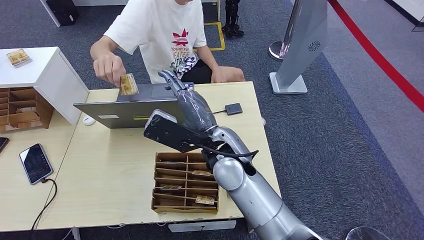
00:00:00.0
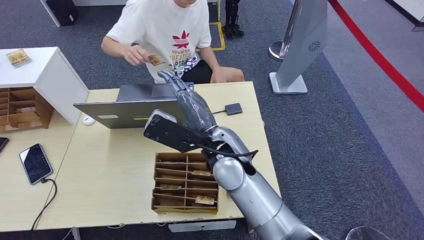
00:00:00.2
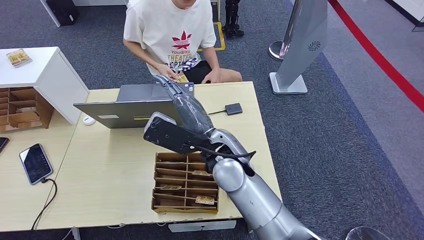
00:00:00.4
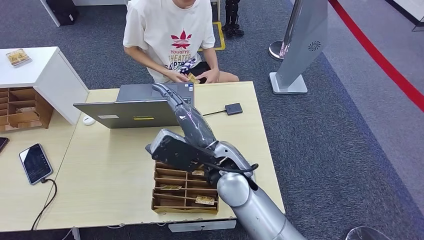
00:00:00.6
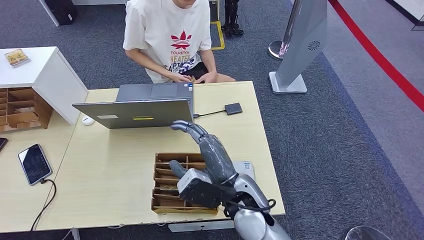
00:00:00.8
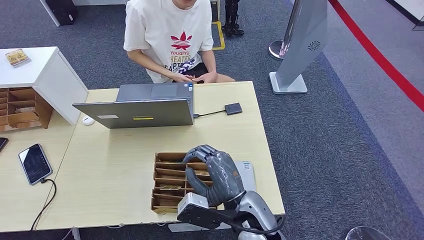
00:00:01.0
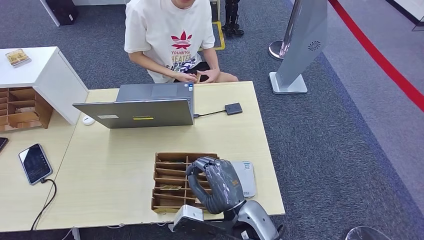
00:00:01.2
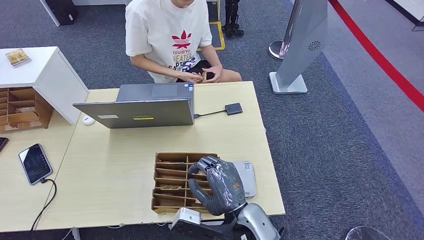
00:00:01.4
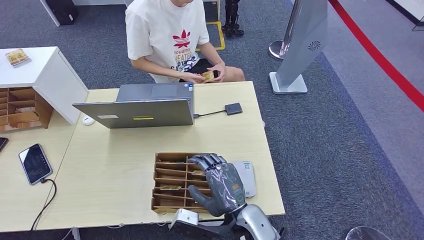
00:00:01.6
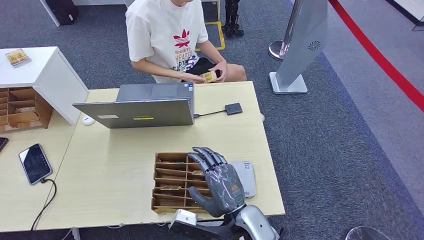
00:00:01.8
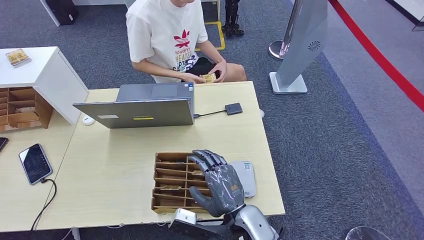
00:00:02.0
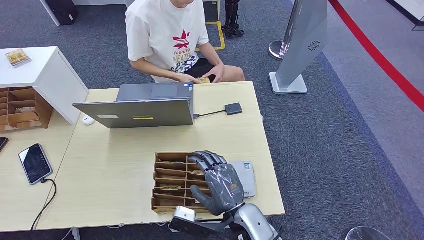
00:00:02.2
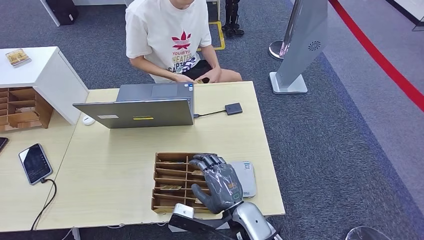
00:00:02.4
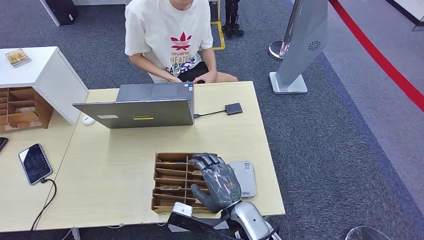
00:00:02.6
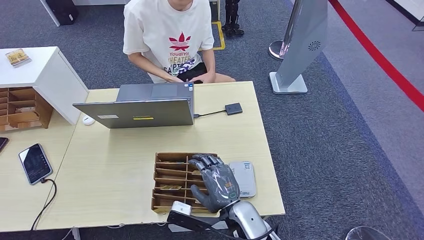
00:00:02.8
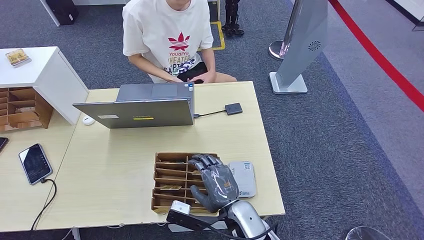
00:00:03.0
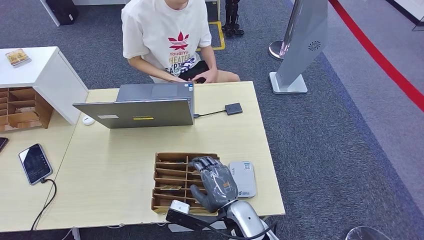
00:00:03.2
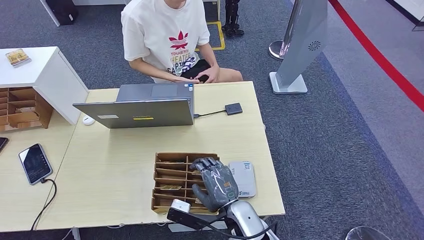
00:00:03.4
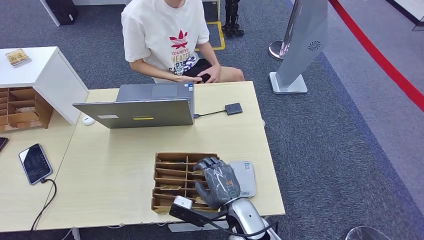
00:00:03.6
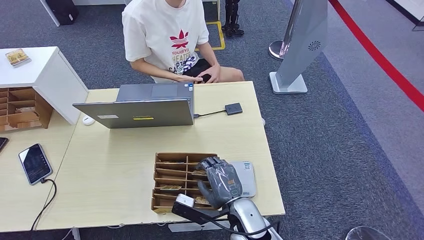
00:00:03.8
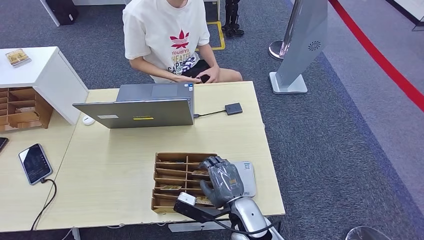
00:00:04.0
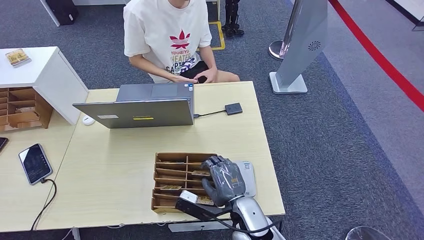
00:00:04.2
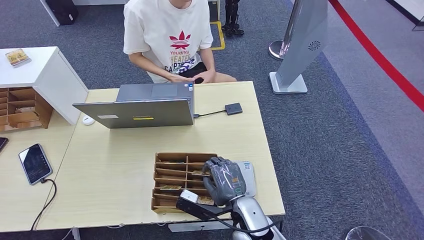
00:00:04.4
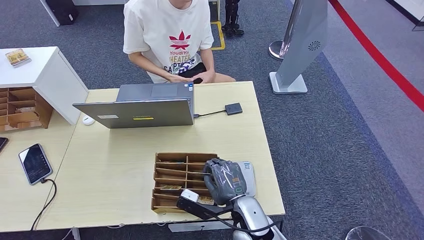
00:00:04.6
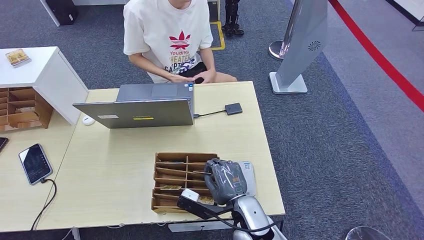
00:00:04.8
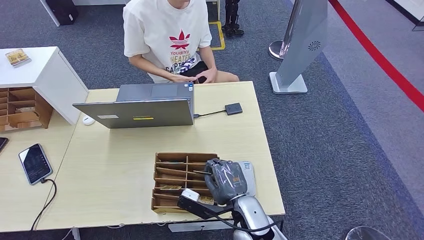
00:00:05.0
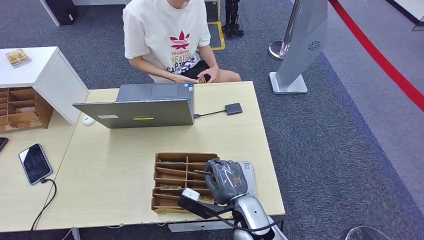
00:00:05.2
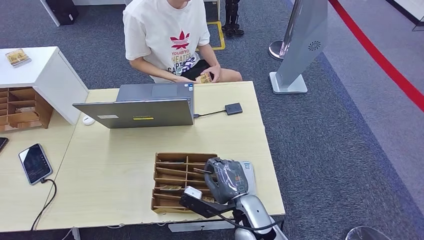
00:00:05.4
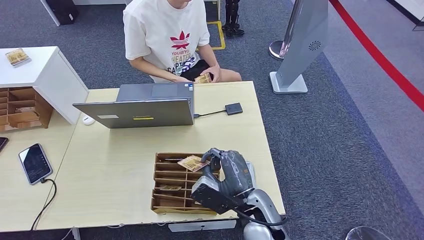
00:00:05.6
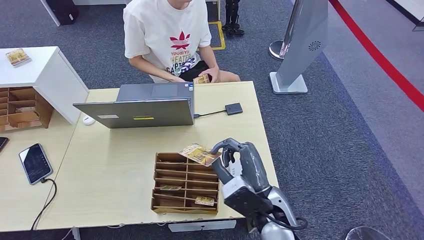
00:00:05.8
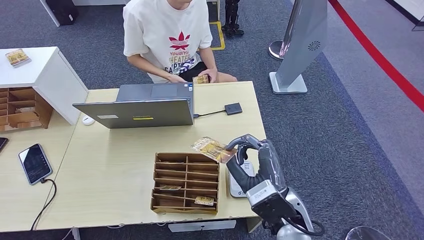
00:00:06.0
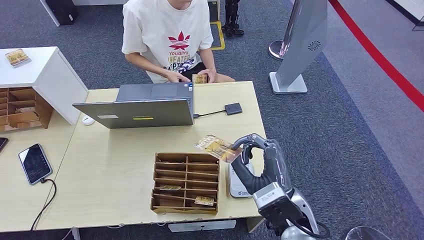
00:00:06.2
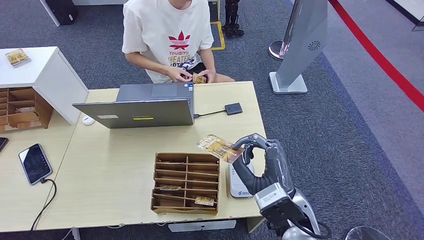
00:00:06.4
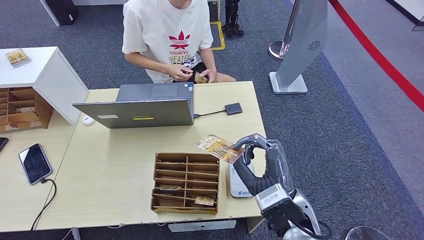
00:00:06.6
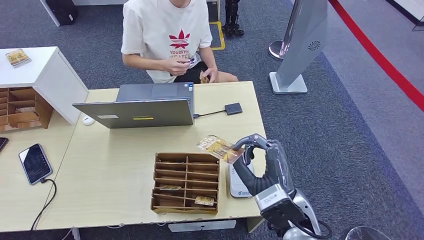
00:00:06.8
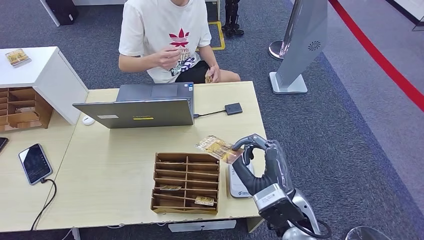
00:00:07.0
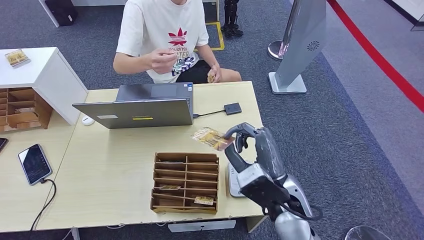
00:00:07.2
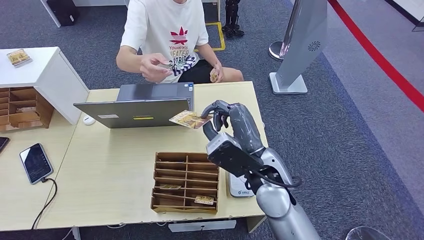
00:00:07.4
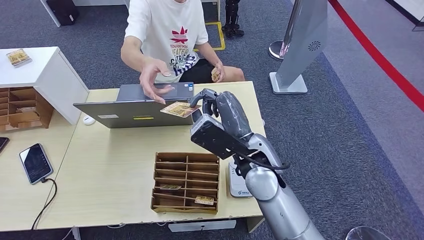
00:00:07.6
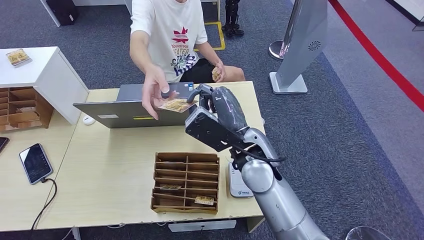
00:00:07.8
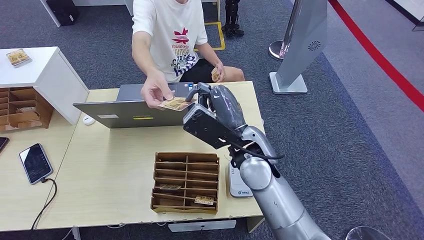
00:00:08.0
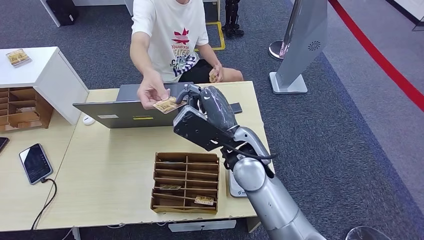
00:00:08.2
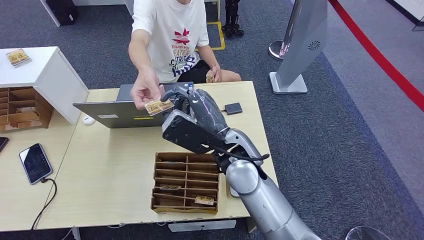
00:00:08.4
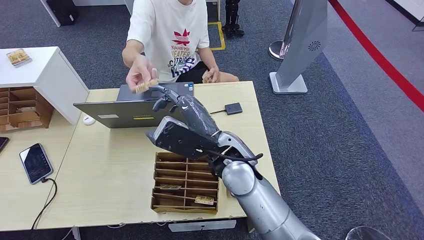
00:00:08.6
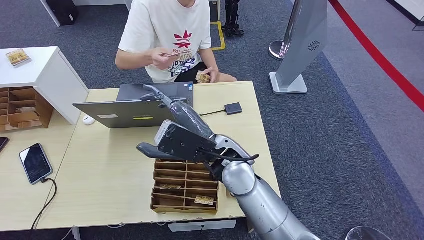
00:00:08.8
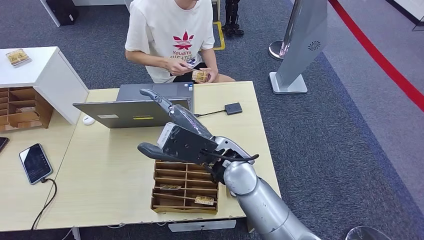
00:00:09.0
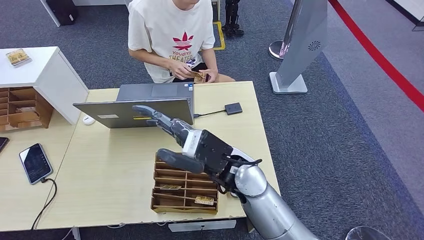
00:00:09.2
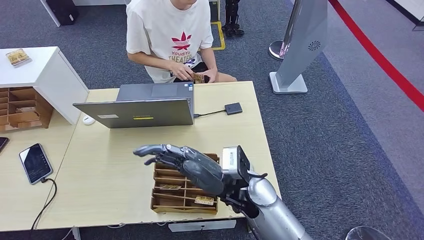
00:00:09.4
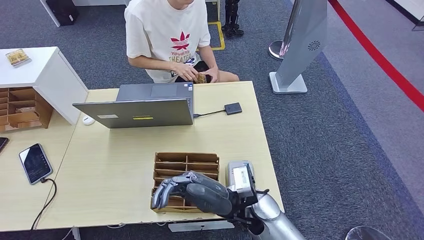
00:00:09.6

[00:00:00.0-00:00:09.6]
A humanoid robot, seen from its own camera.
Step, 00:00:01.2 to 00:00:06.0: Pick up the room key from the key card box.
Step, 00:00:06.2 to 00:00:09.6: Hand the room key to the person.
00:00:00.0 to 00:00:01.6: The right hand moves backward, downward and to the right, some 20 cm.
00:00:01.6 to 00:00:04.8: The hands stay close to where they were, moving slightly.
00:00:04.8 to 00:00:06.4: The right hand shifts about 10 cm upward and to the right.
00:00:06.4 to 00:00:08.0: The right hand goes roughly 15 cm forward, to the left and upward.
00:00:08.0 to 00:00:09.6: The right hand moves downward and backward, roughly 15 cm.
